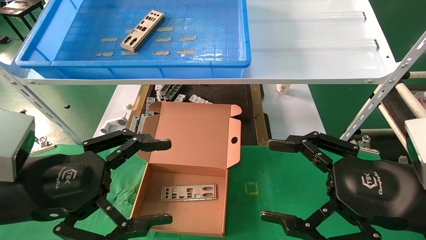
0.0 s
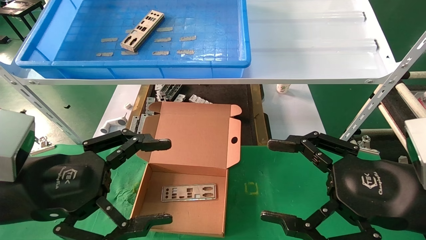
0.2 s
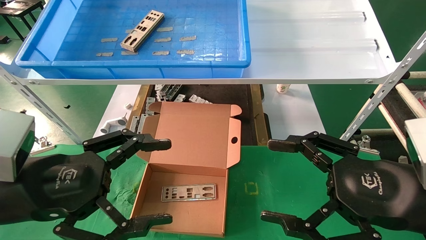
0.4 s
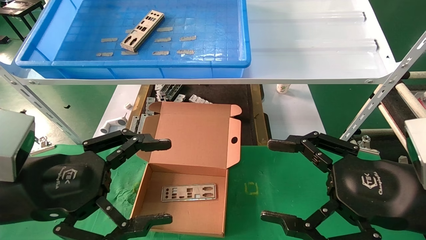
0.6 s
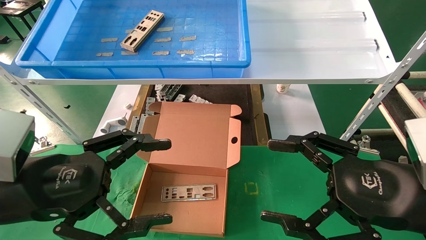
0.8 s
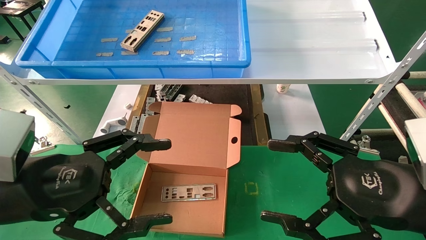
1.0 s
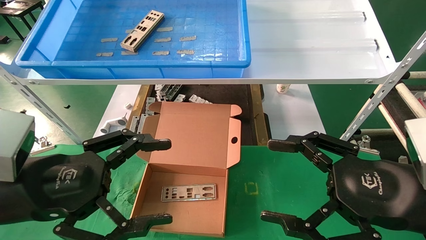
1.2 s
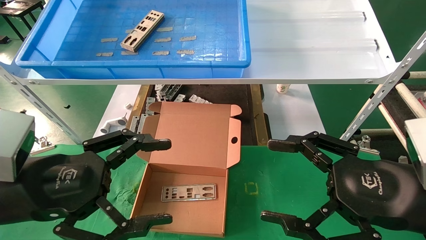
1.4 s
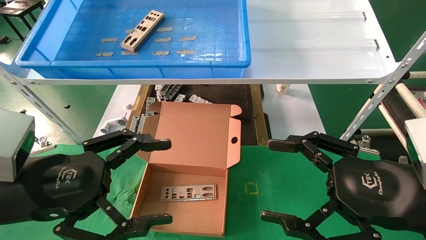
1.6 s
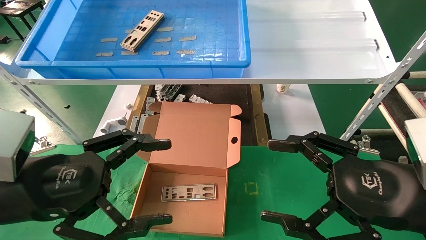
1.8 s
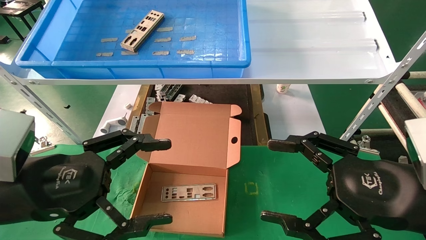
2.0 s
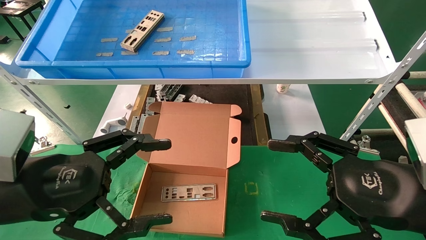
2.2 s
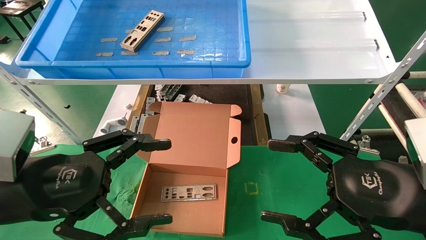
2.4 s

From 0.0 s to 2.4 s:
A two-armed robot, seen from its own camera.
Task of the whole recording: pick up the parts on the tray and put them in the cardboard box.
From 0.0 s to 2.4 s: Both grippers stay about where they are.

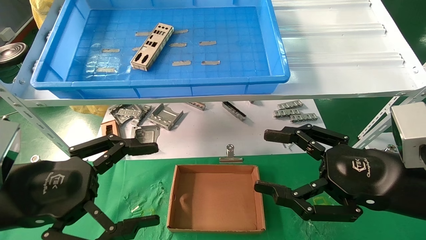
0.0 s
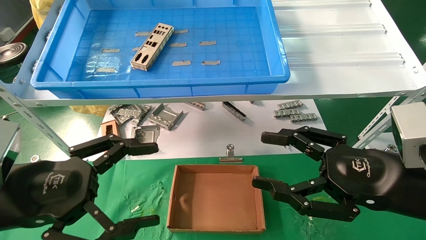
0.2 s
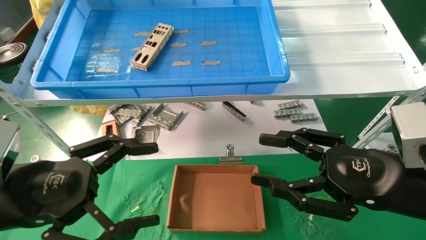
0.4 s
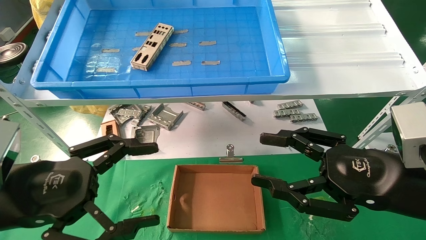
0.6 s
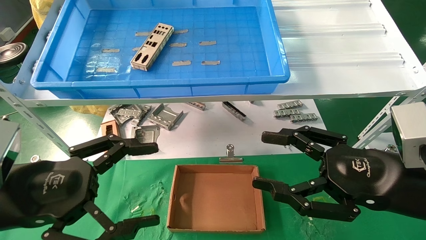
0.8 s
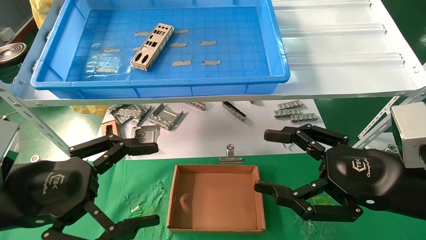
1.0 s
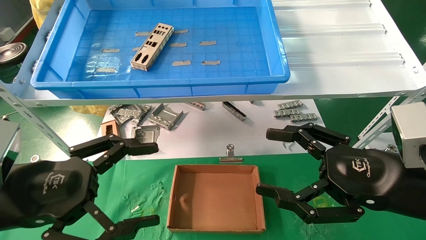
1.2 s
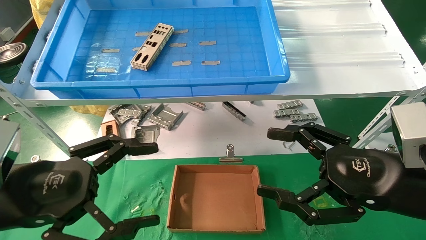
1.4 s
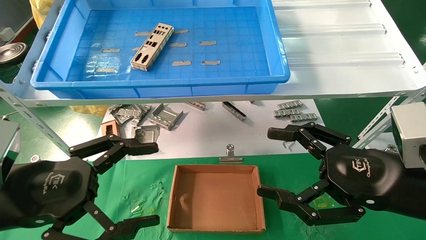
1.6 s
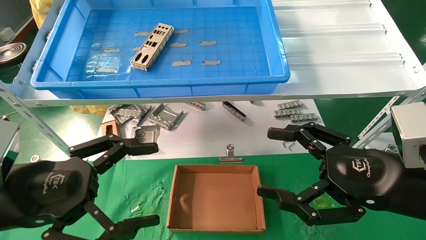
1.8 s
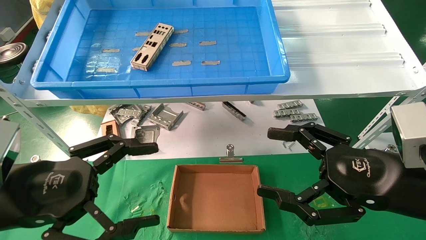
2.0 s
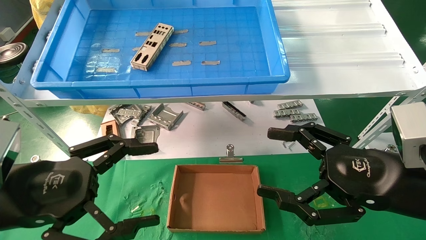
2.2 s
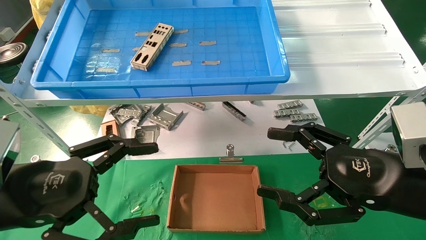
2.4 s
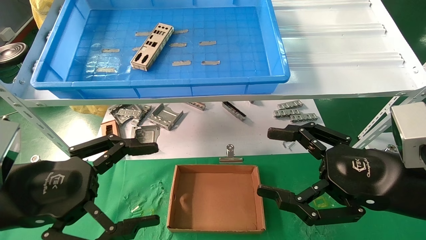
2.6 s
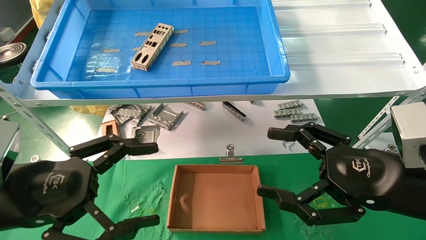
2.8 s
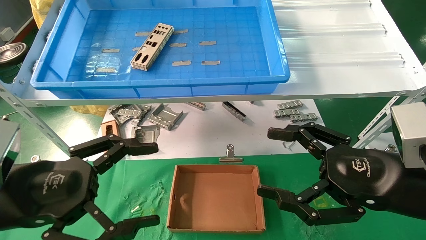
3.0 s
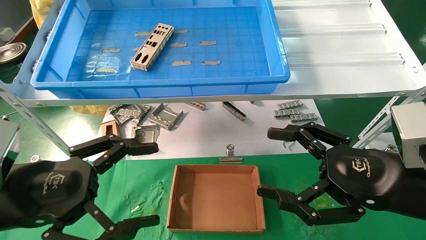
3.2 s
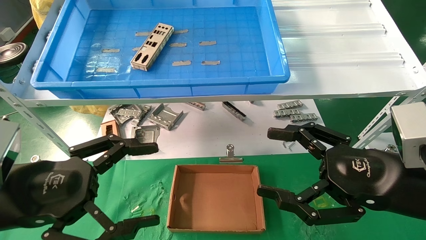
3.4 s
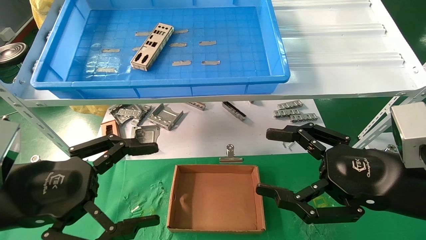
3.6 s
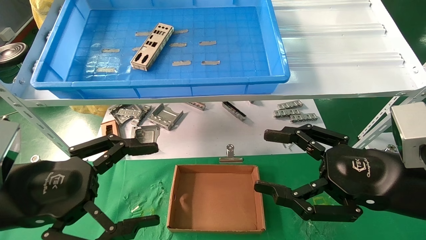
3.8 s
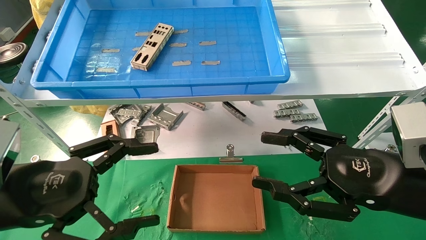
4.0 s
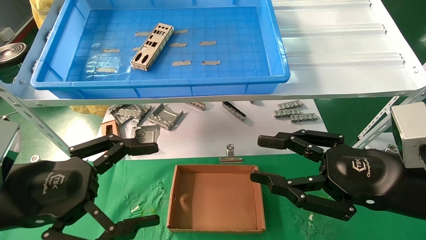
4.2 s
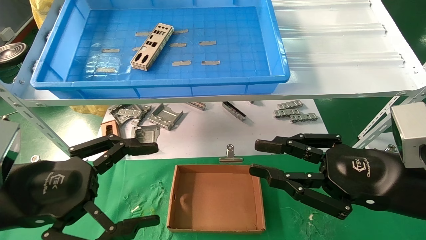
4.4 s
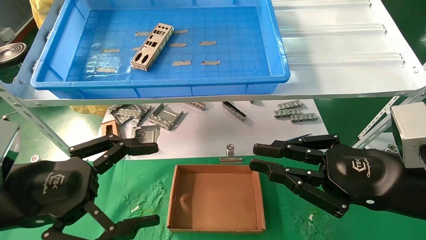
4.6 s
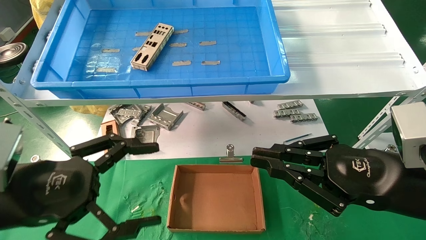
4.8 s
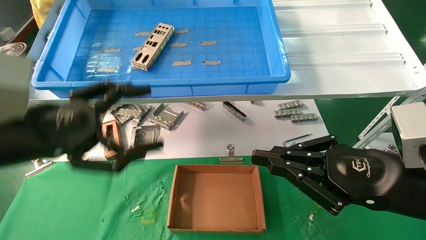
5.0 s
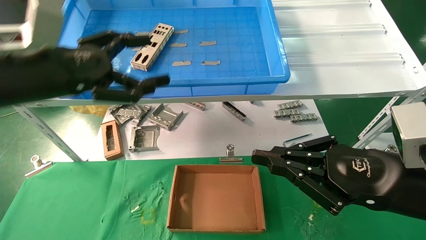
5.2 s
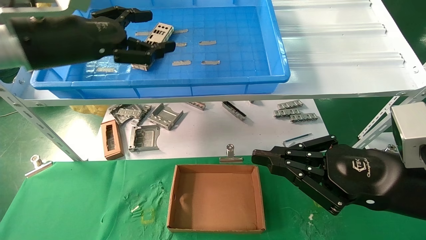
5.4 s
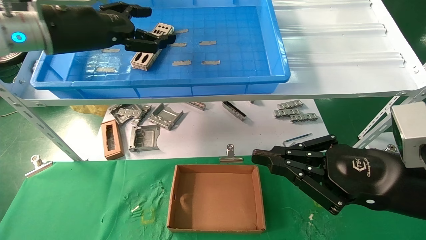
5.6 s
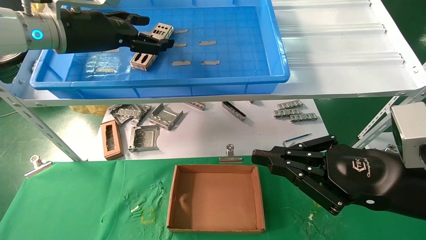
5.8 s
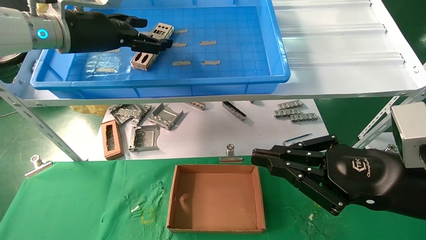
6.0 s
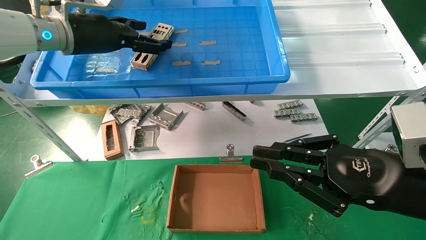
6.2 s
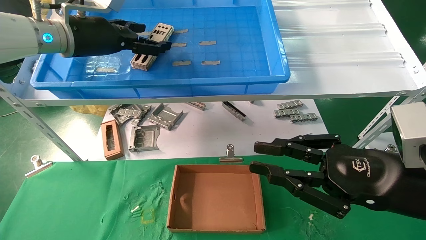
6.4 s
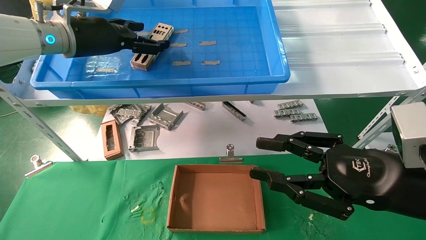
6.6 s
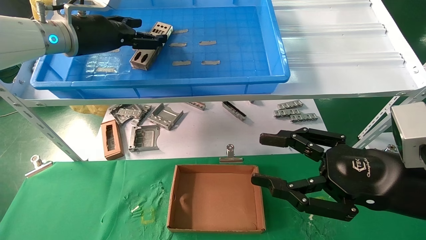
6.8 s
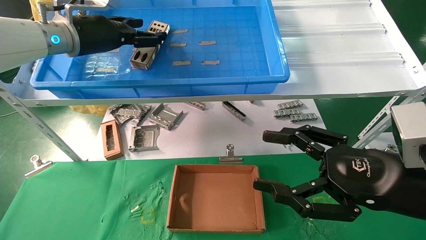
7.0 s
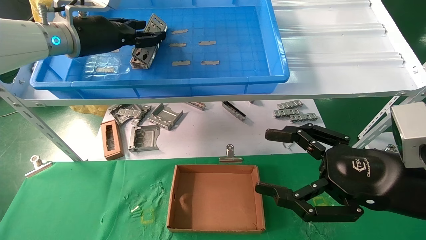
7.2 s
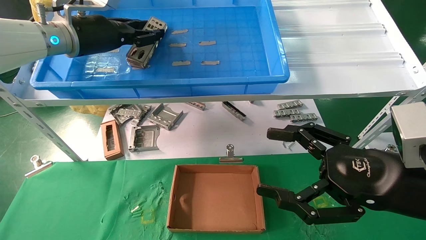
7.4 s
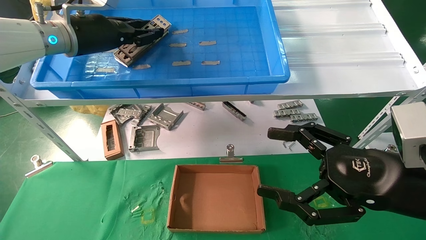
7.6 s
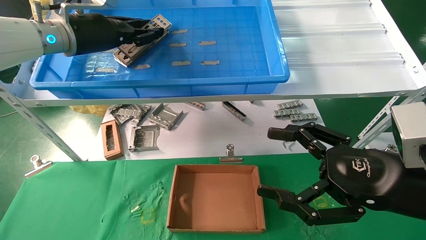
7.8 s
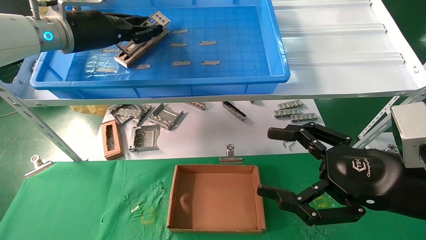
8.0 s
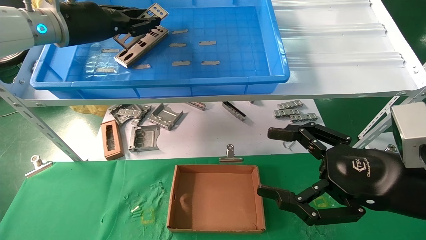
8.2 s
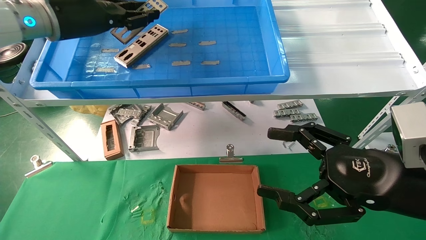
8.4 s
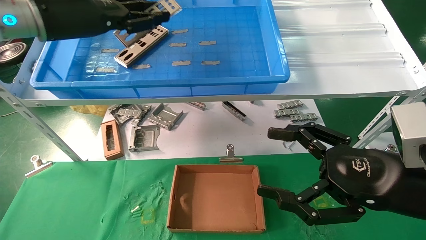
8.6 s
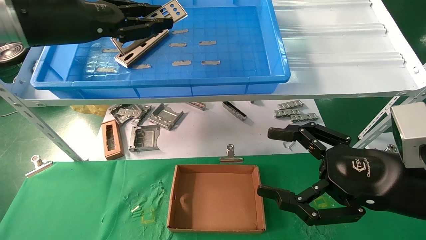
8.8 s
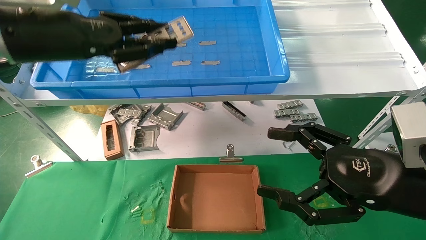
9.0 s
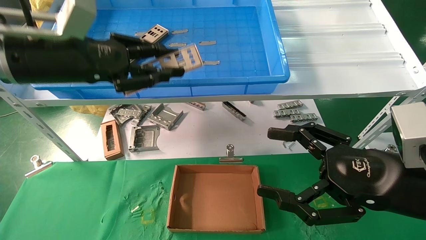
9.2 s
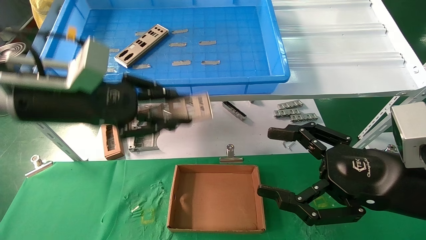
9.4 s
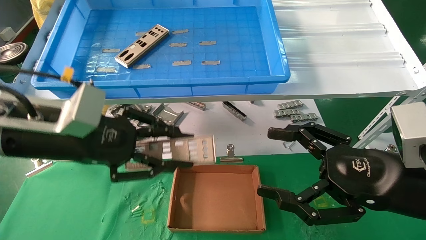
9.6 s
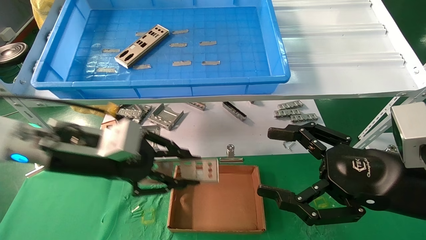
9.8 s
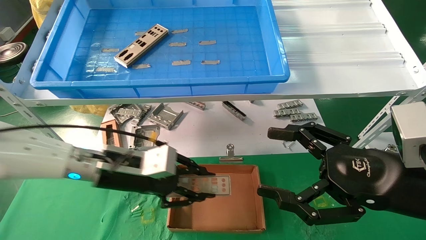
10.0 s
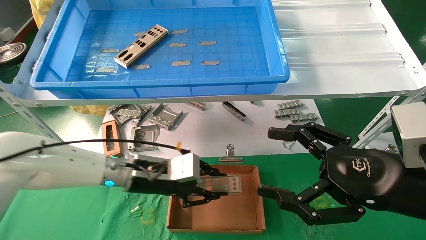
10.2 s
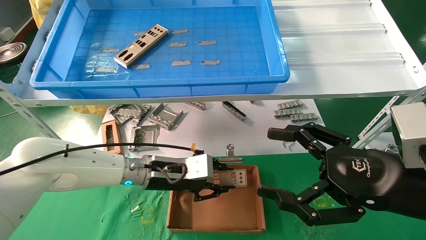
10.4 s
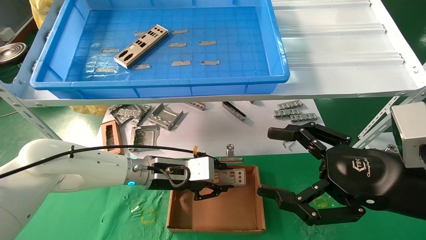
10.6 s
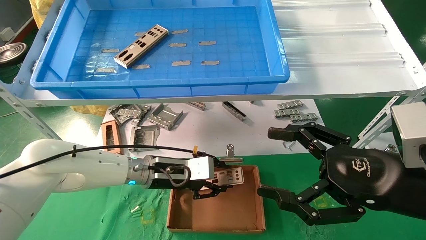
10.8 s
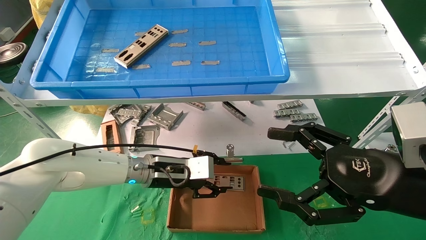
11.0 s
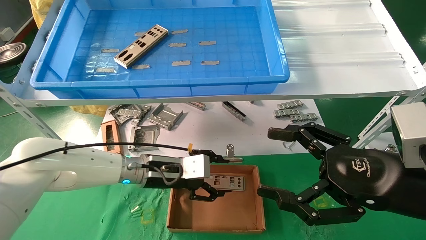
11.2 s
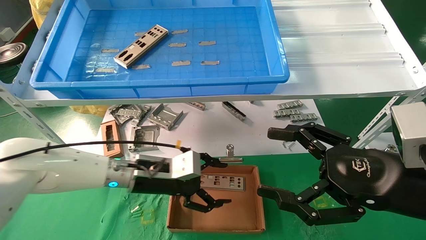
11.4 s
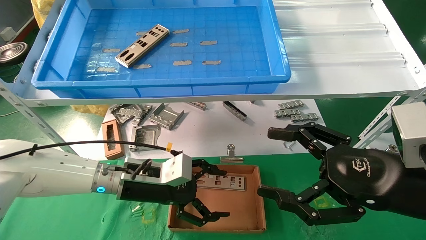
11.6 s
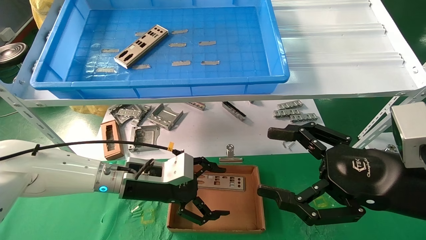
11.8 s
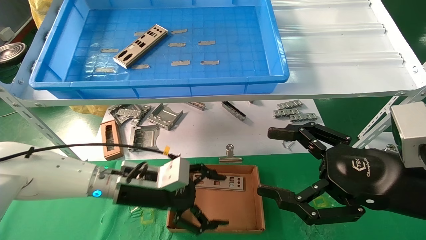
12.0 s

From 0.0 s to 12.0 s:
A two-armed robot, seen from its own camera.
Task of the whole recording: pick up the parts on the tray and put them in the cardboard box.
Step, from 5.4 s to 8.0 s: Pick up the IO bracket from the container box.
Step, from 8.2 s to 10.8 s: Place the IO bracket into the ingredient slot.
From 0.0 s to 3.0 s: Both grippers stay put.
From 3.0 s to 4.4 s: The right gripper closes its fingers.
From 4.4 s to 6.0 s: The left gripper heads forward and upward, covering approximately 30 cm; the right gripper closes.
From 6.0 s to 7.6 s: The left gripper closes. The right gripper opens.
From 7.6 s to 9.0 s: The left gripper goes some 10 cm backward.
From 9.0 s to 10.4 s: The left gripper goes approximately 30 cm downward and to the right.
From 10.4 s to 12.0 s: The left gripper opens its fingers.

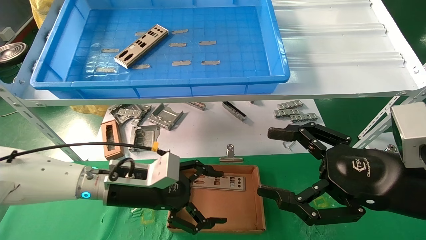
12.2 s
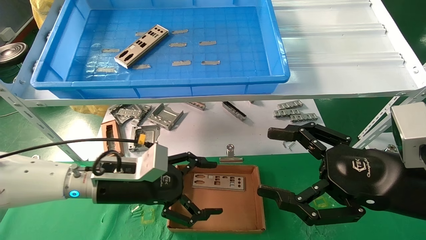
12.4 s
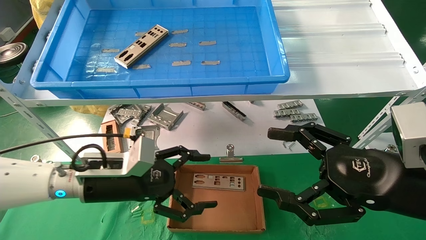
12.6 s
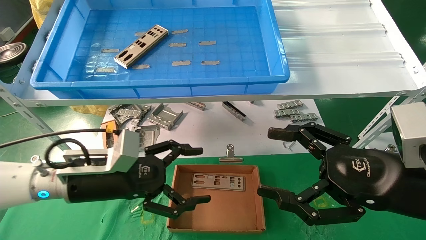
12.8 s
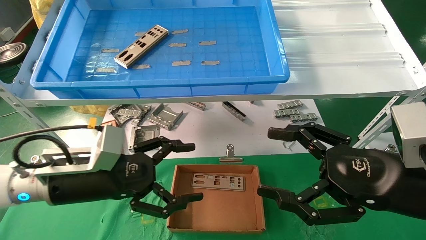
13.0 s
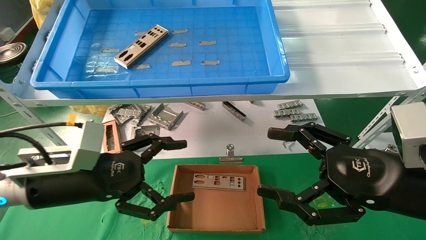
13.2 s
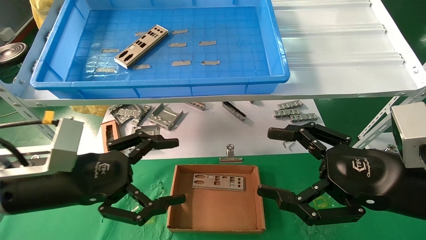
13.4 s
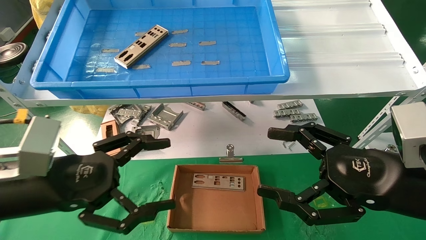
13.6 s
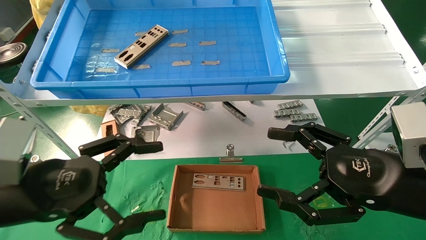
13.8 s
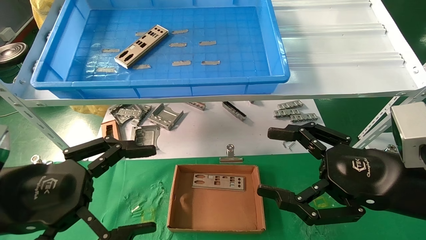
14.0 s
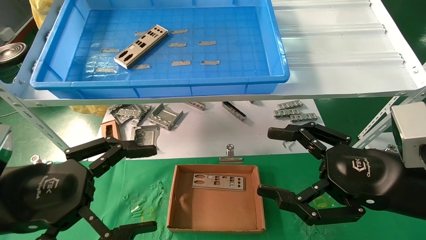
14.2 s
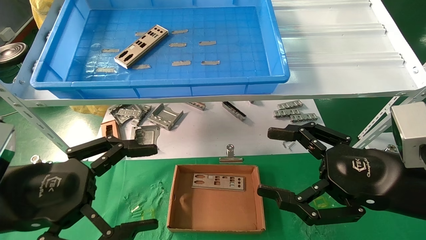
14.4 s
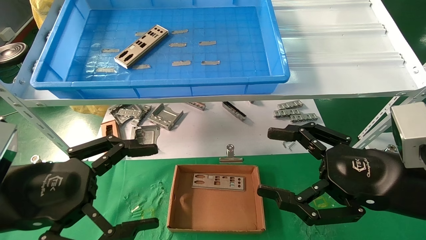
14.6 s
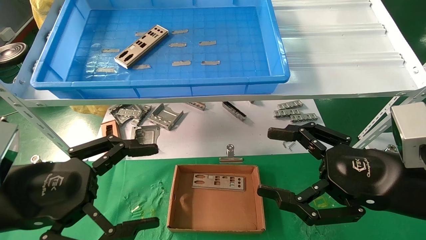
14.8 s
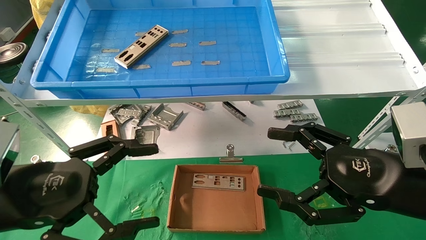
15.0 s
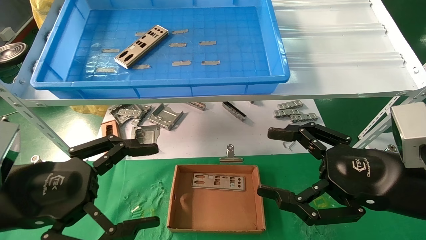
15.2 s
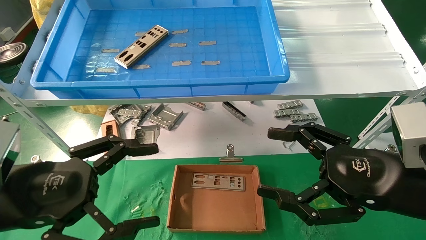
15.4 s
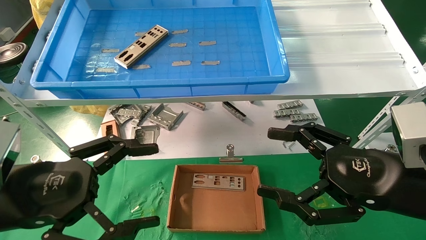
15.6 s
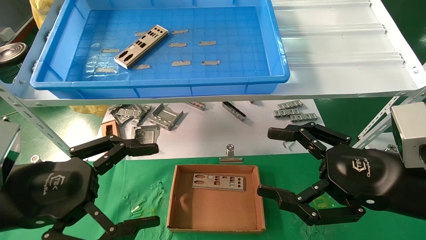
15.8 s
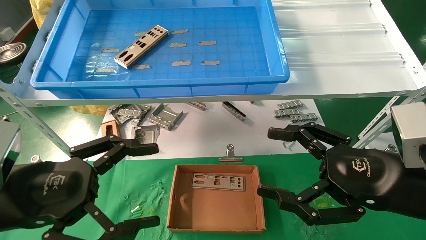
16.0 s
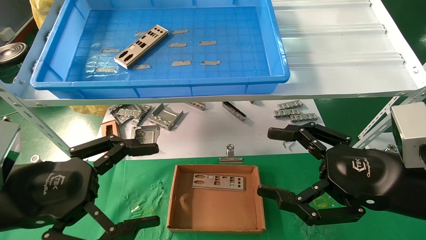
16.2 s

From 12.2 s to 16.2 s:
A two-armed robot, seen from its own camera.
Task of the whole recording: pick up the parts on the tray and put them in the cardboard box.
From 12.2 s to 13.6 s: The left gripper shifts some 15 cm backward, to the left and upward.
From 13.6 s to 14.8 s: The grippers move only a little.
From 14.8 s to 16.2 s: Both grippers stay put.
